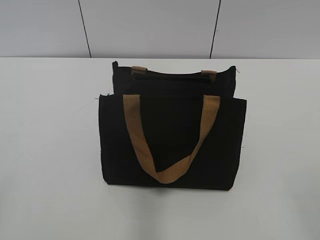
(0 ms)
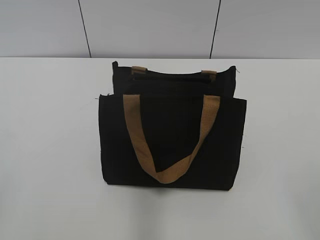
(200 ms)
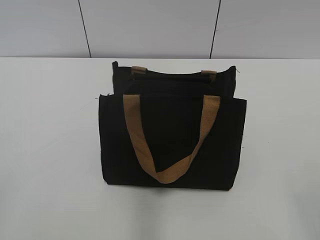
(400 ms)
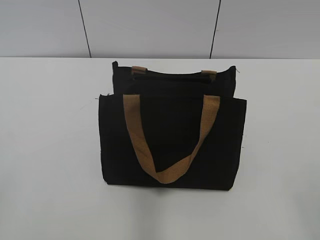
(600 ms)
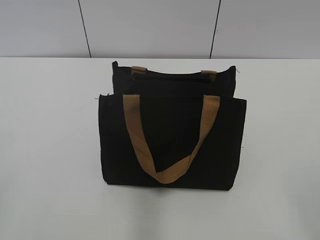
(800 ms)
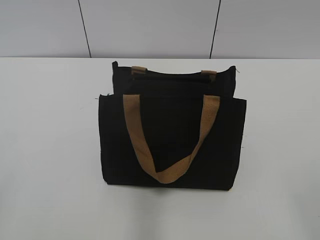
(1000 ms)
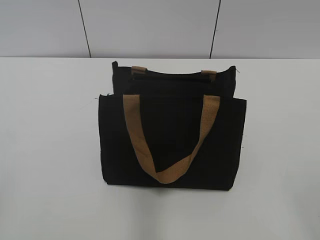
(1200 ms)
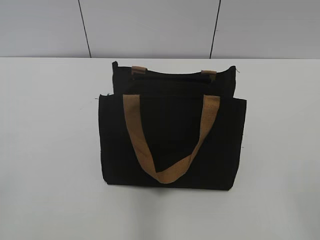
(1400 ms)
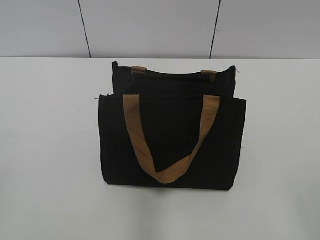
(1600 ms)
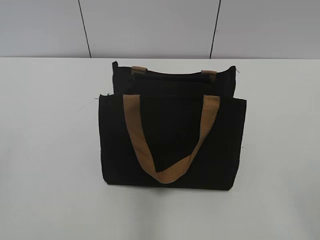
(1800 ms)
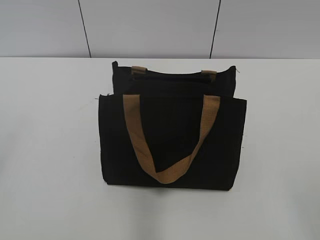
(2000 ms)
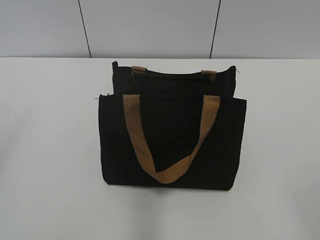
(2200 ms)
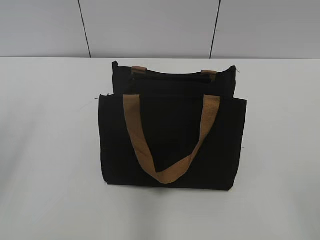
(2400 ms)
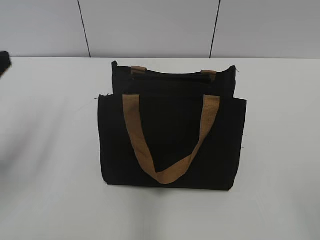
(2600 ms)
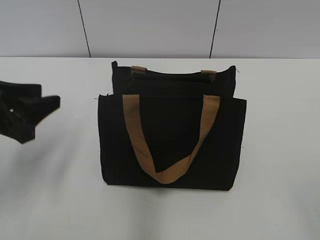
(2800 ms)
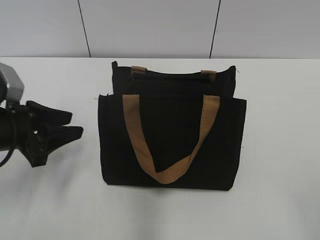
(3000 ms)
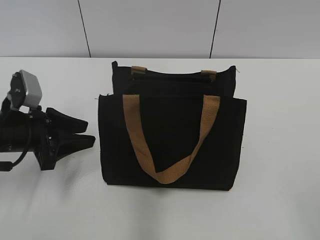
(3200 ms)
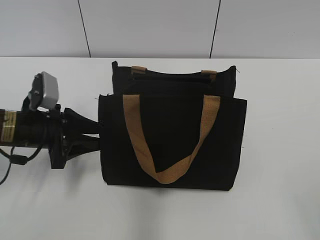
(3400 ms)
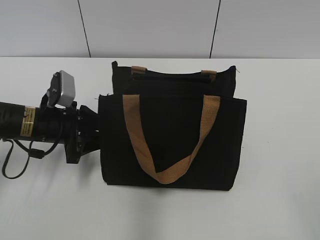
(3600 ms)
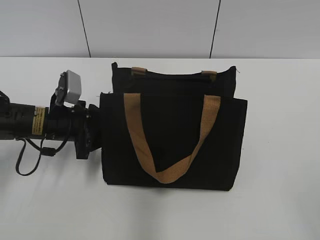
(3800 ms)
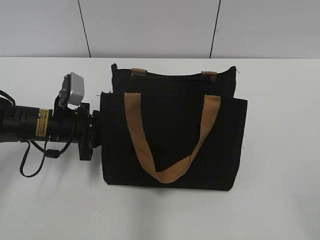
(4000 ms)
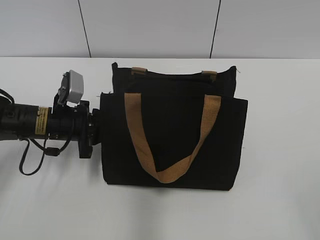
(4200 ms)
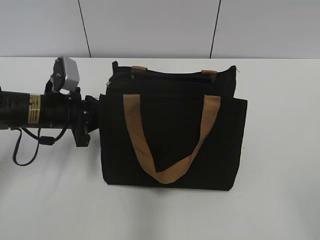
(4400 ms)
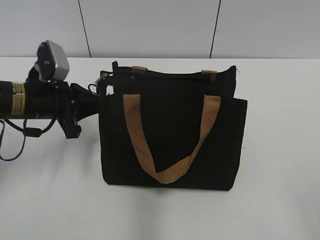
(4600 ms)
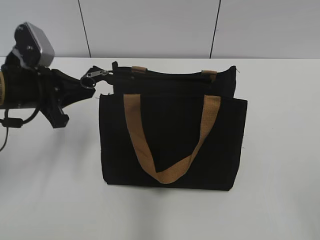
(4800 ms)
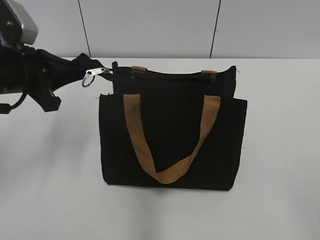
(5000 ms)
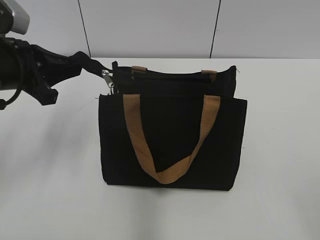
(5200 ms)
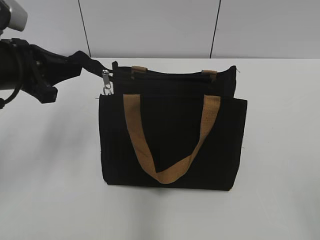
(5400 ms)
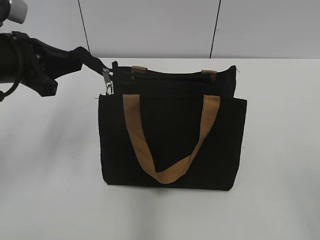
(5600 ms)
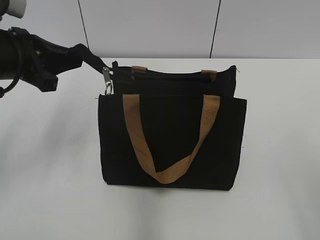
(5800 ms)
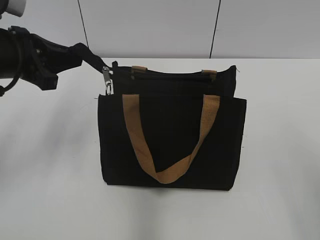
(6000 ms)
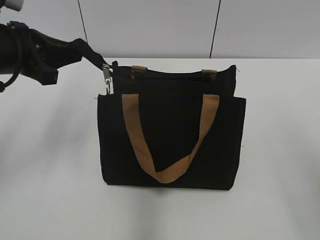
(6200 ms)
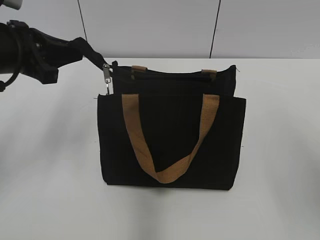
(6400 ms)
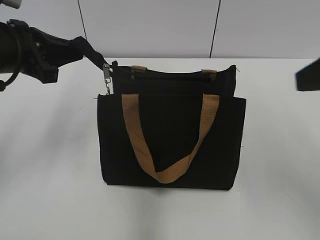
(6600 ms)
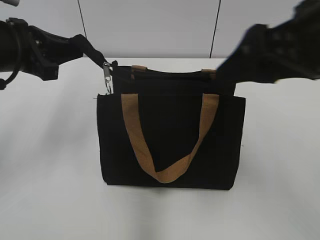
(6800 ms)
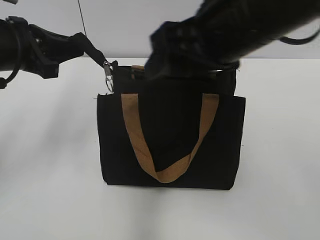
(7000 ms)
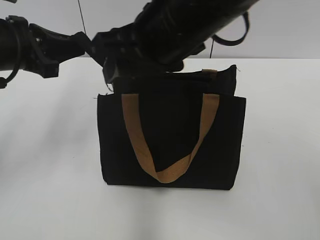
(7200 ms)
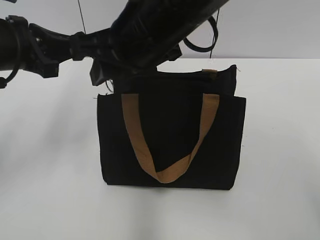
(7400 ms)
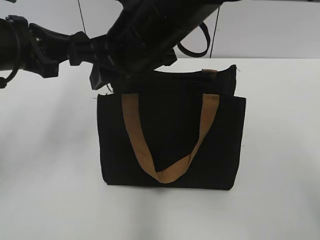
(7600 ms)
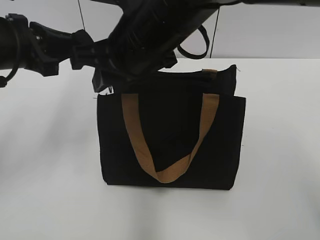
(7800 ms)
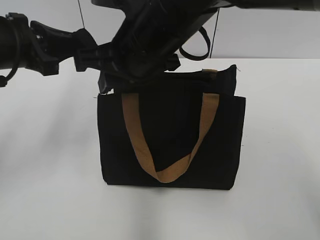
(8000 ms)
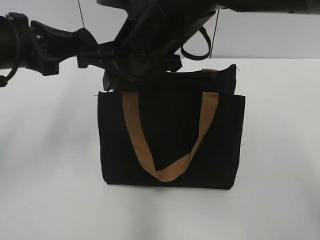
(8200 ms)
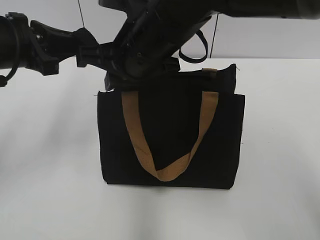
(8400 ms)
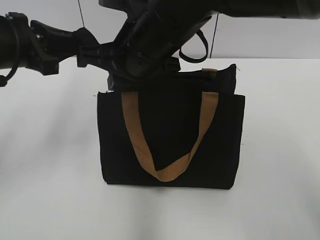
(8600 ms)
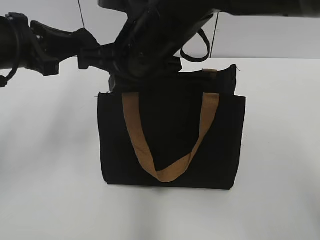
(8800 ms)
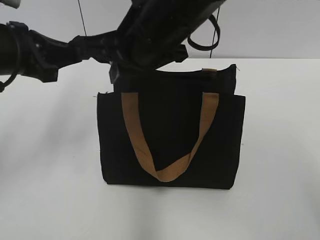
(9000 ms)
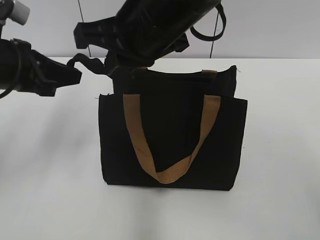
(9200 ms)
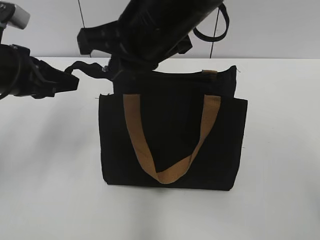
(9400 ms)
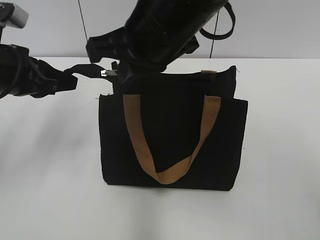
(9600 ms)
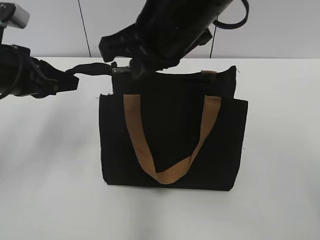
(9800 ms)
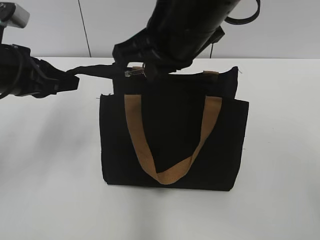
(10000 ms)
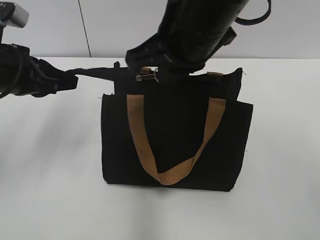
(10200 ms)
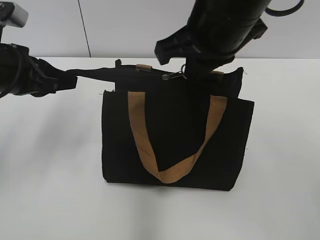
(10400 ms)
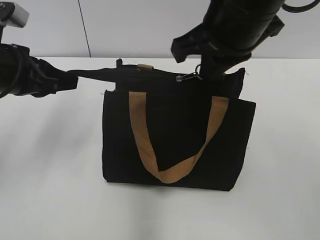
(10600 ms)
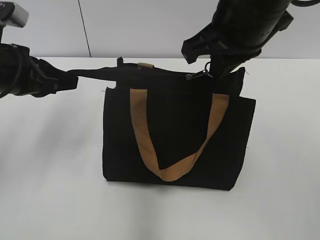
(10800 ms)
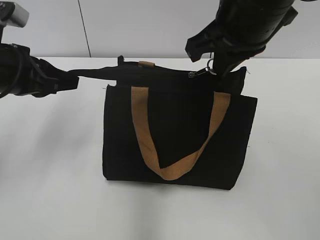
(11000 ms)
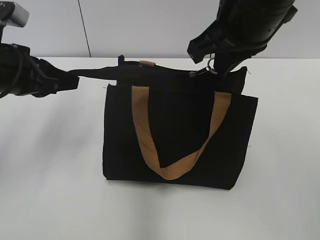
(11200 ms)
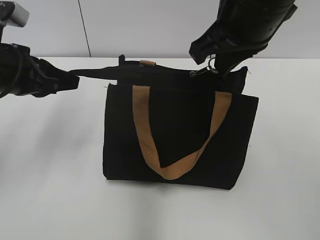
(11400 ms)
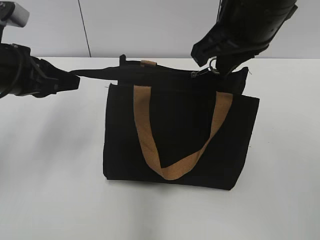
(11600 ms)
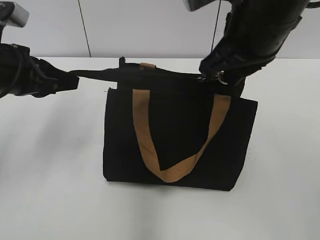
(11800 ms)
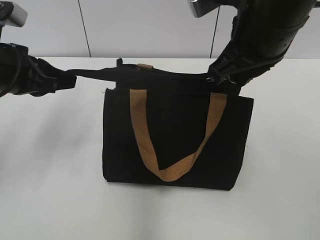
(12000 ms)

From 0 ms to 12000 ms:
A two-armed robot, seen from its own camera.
From 1600 ms to 3000 ms: The left gripper is displaced forward and downward by approximately 30 cm.
From 3000 ms to 4400 ms: The left gripper is displaced forward and to the right by about 10 cm, and closes up.
From 4400 ms to 6000 ms: The left gripper goes roughly 10 cm upward.
From 6000 ms to 7600 ms: The right gripper is displaced to the left and forward by about 35 cm, and closes its fingers.
From 7600 ms to 9000 ms: The right gripper closes its fingers.
From 9000 ms to 10400 ms: The right gripper goes roughly 5 cm to the right.
From 10400 ms to 12000 ms: The grippers make only small movements.

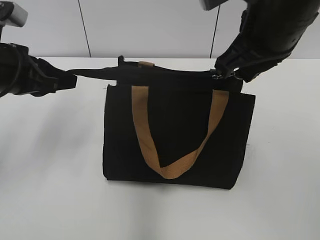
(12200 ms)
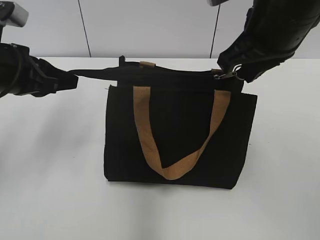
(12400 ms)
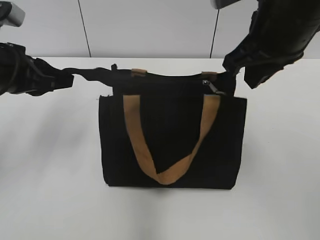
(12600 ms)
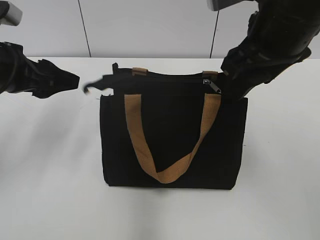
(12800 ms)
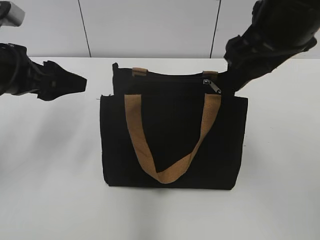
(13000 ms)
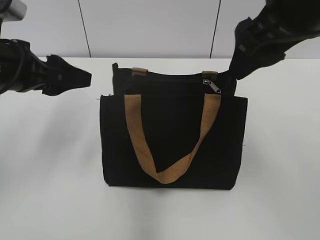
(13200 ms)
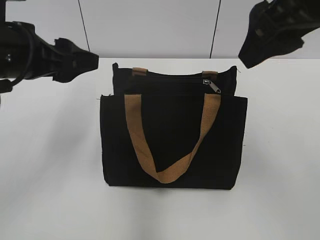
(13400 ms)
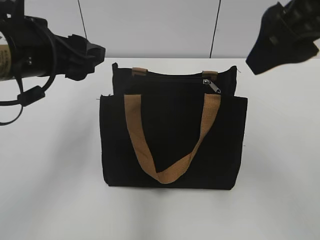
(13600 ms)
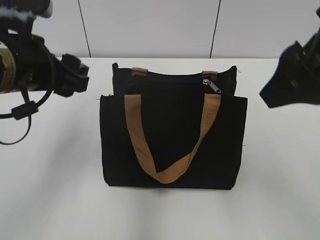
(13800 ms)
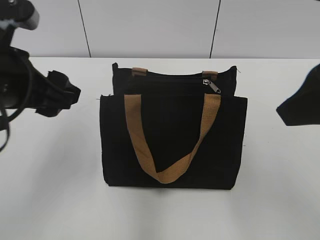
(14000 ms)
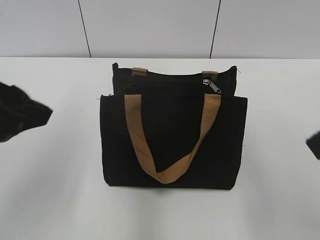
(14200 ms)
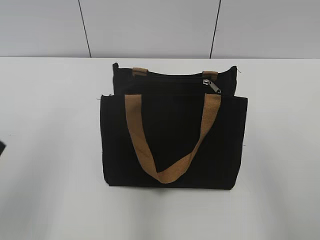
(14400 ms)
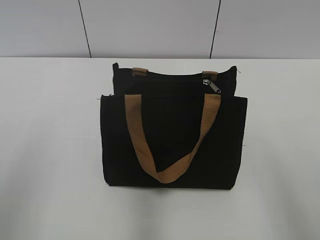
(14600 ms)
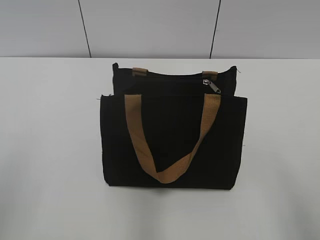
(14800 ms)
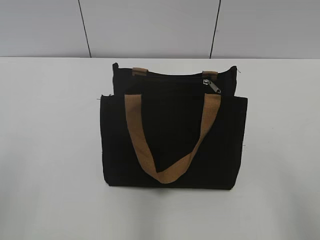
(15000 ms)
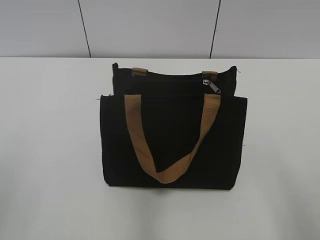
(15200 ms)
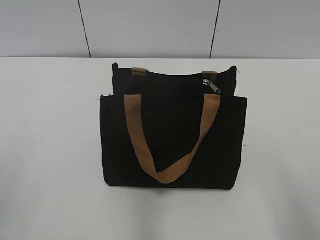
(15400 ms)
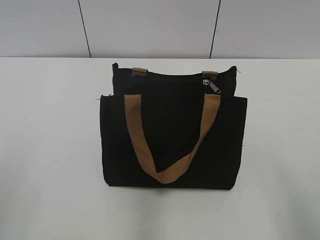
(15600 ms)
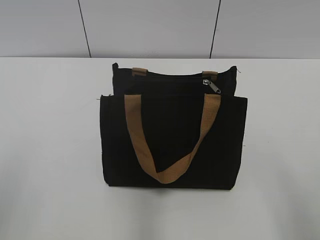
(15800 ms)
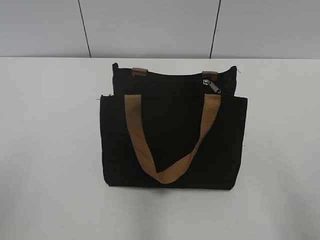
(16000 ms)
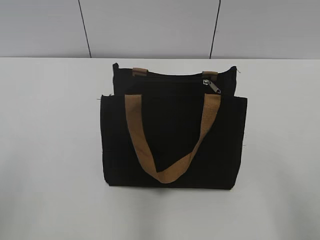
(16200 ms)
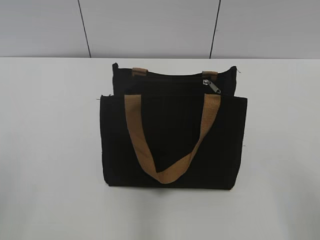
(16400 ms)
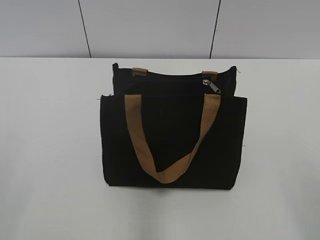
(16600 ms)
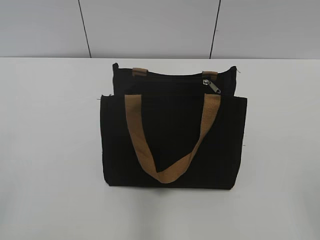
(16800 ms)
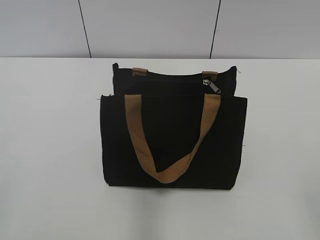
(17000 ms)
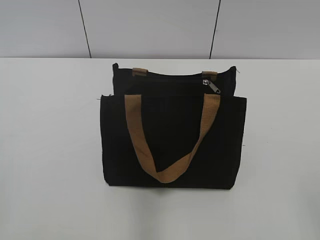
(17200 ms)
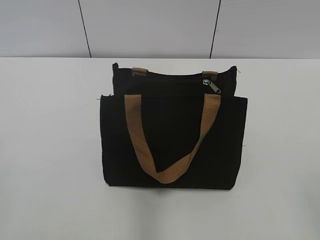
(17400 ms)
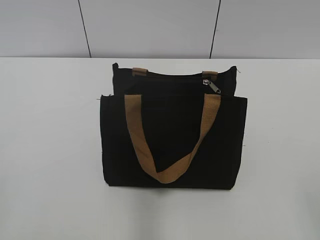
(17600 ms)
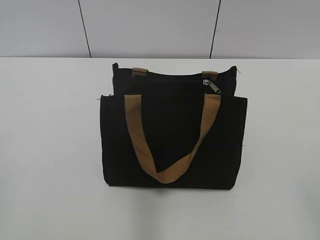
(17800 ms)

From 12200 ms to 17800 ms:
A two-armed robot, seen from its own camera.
Step, from 12800 ms to 13000 ms: Grab the zipper with your left hand.
From 12200 ms to 13600 ms: The left gripper goes roughly 5 cm to the right, and opens up. The right gripper heads backward and upward, covering some 10 cm, and opens.
From 13600 ms to 15000 ms: The right gripper heads backward, downward and to the right, covering approximately 25 cm; the left gripper shifts about 25 cm backward and to the left.

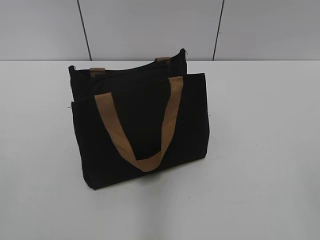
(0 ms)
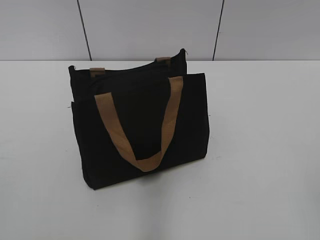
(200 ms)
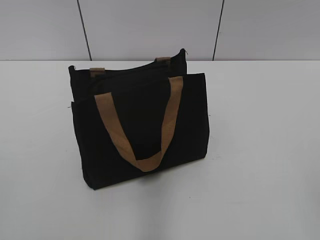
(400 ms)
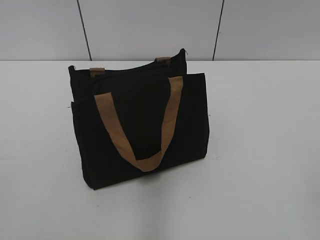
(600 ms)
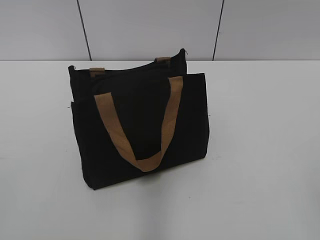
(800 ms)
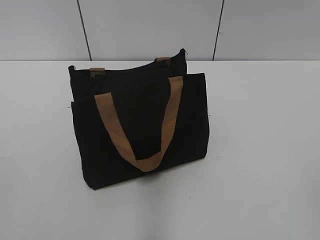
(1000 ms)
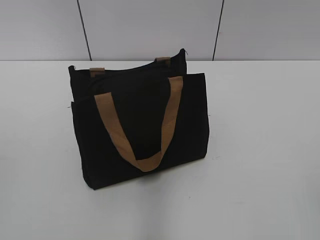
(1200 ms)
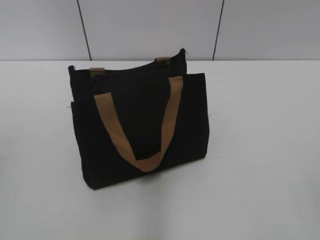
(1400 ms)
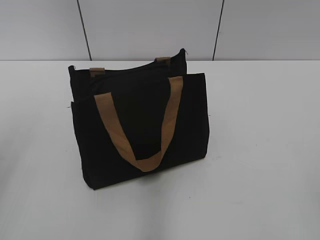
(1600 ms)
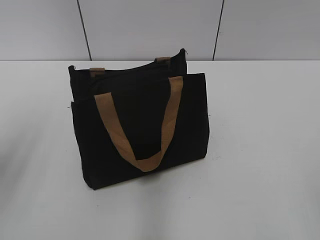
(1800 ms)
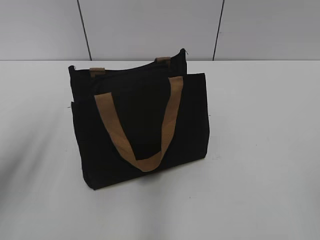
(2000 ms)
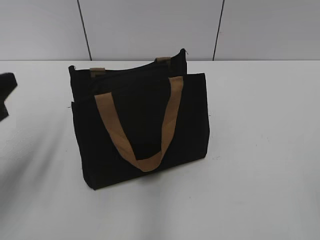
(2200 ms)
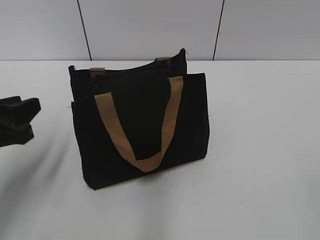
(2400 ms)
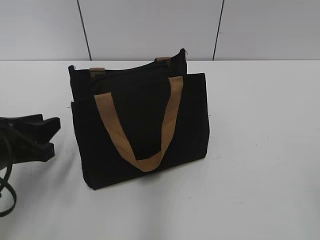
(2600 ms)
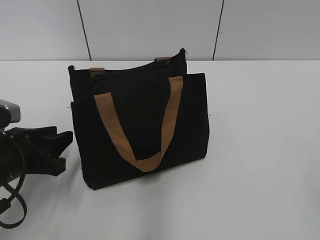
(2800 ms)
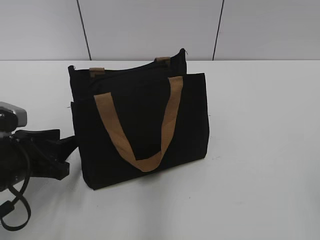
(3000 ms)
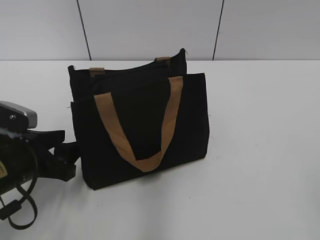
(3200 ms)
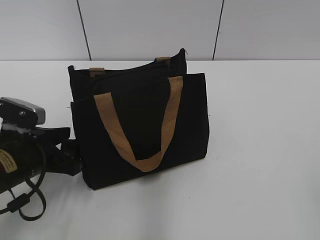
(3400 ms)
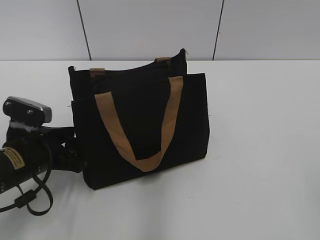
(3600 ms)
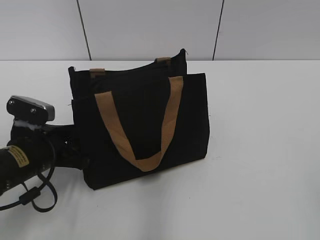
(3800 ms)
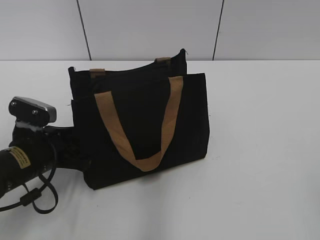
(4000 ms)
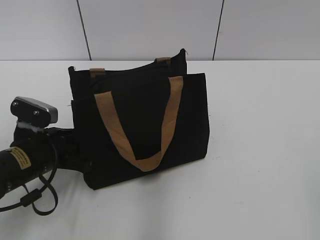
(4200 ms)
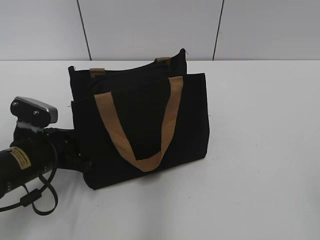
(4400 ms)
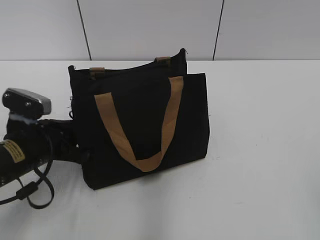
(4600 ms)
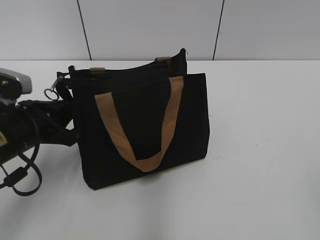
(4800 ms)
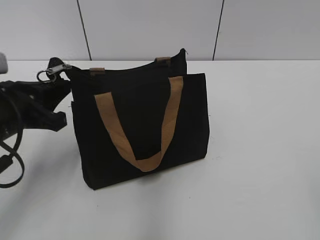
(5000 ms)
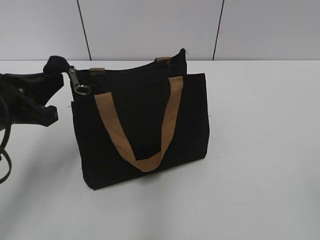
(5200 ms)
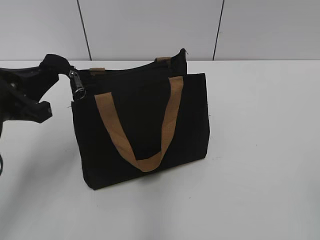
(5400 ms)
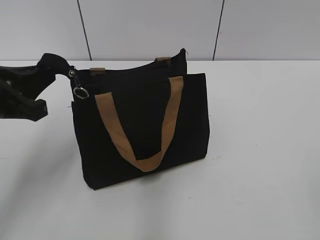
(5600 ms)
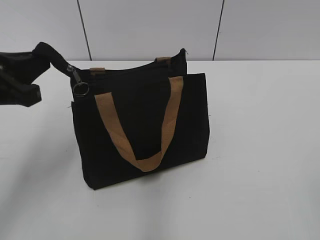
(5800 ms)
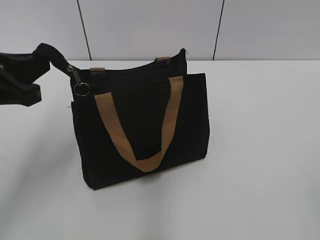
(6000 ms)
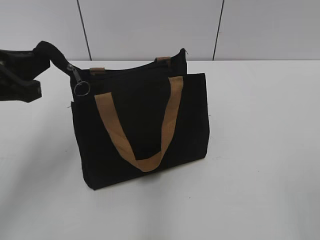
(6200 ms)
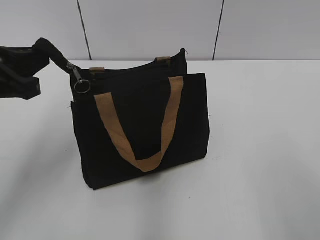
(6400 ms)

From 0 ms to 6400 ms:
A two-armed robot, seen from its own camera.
From 1600 ms to 3200 ms: The left gripper is displaced downward and forward by roughly 25 cm, and opens its fingers.
From 3200 ms to 4800 ms: The left gripper closes.
From 4800 ms to 6400 ms: The left gripper goes approximately 15 cm upward.
